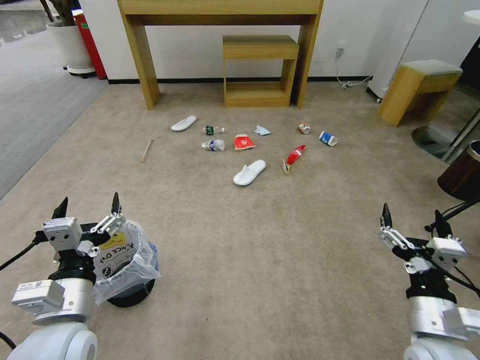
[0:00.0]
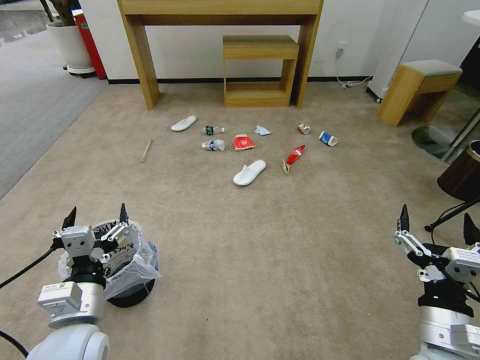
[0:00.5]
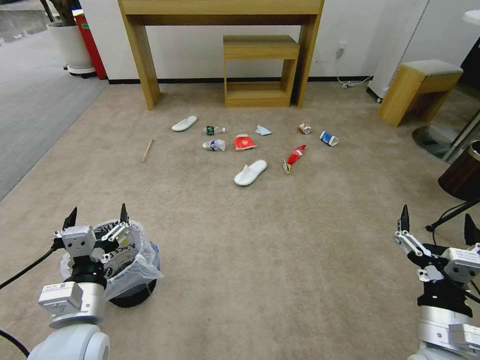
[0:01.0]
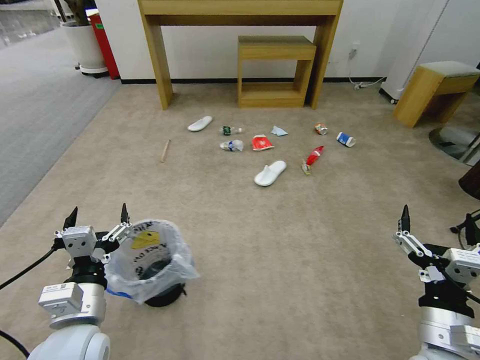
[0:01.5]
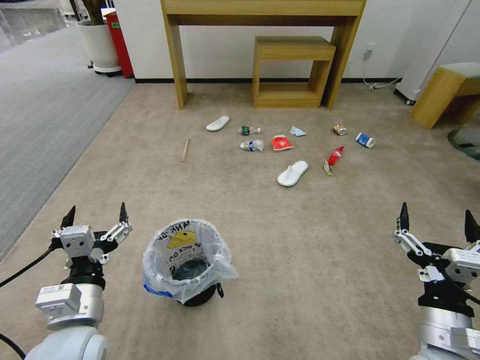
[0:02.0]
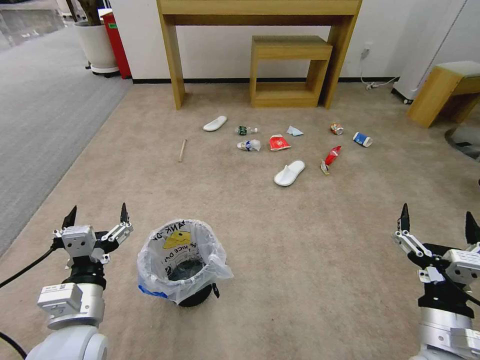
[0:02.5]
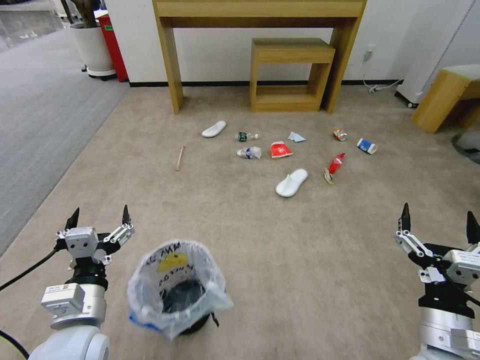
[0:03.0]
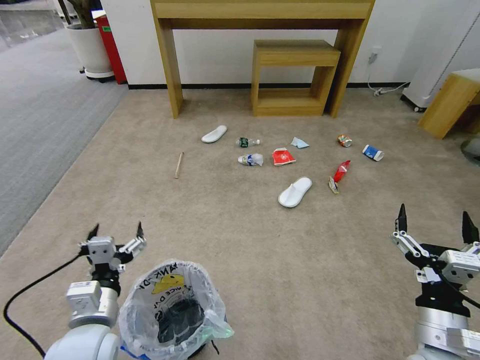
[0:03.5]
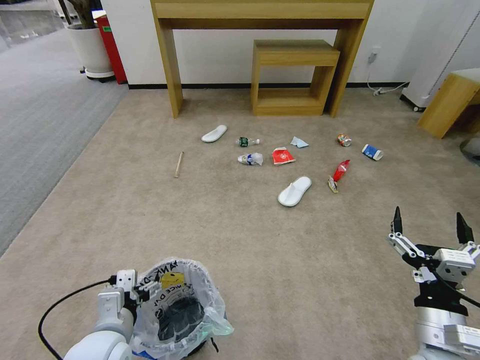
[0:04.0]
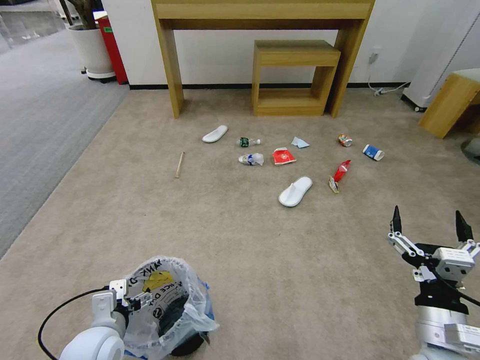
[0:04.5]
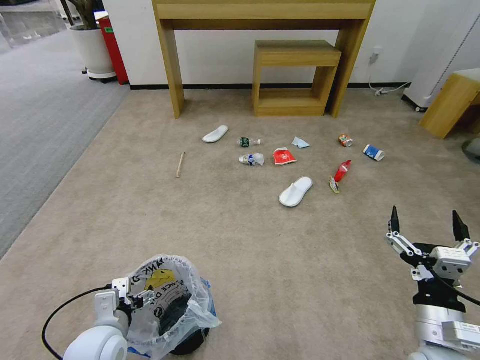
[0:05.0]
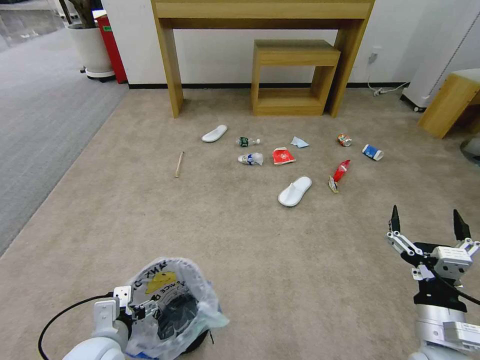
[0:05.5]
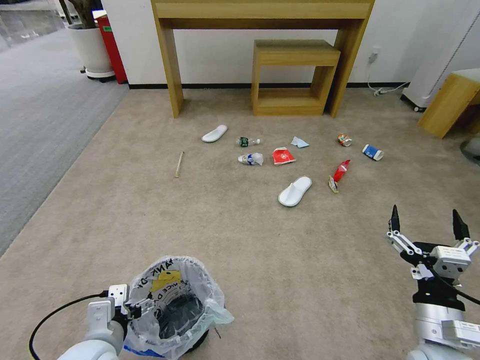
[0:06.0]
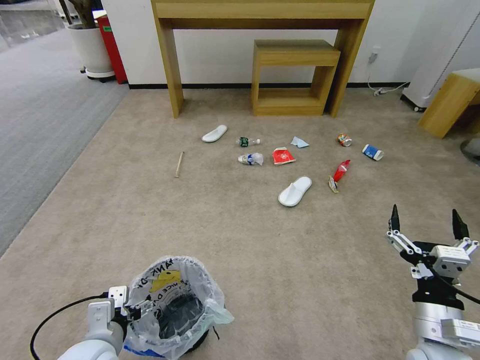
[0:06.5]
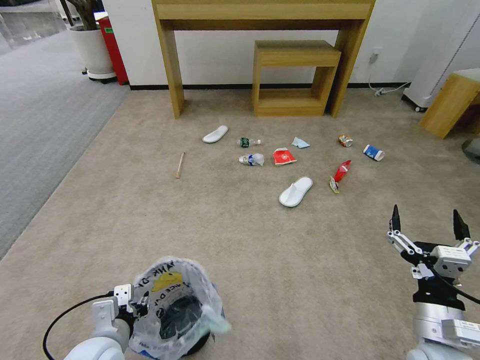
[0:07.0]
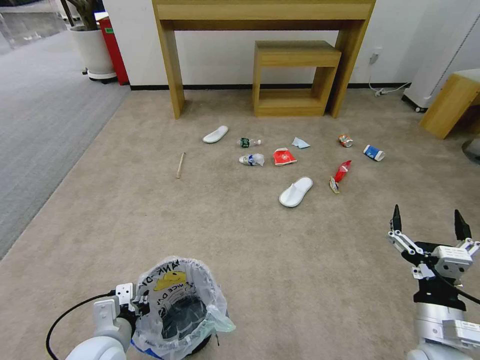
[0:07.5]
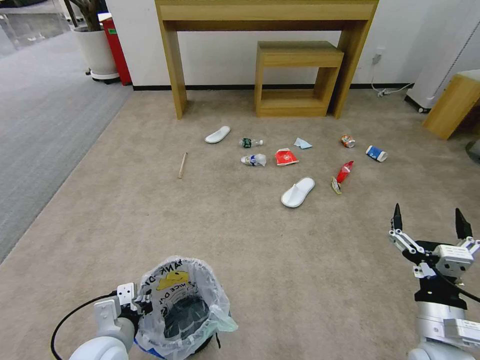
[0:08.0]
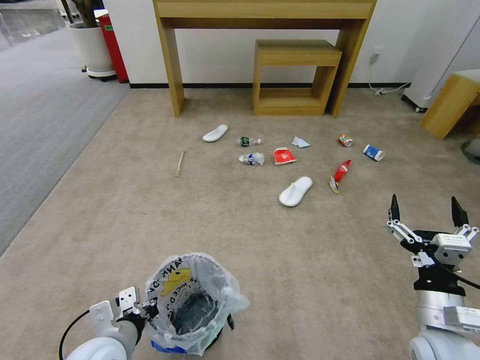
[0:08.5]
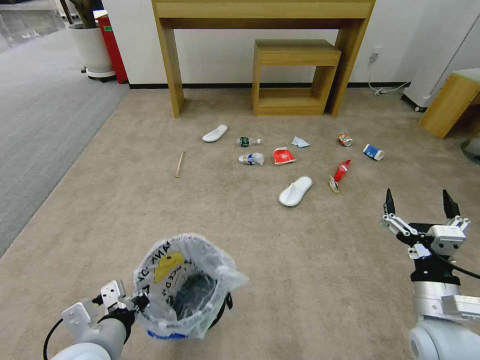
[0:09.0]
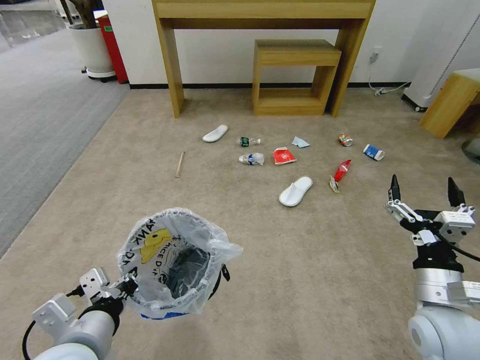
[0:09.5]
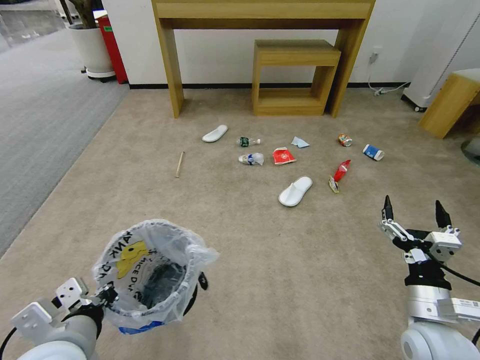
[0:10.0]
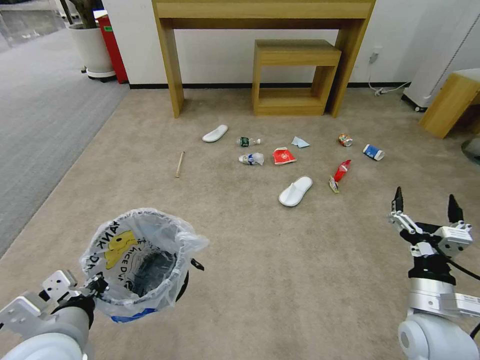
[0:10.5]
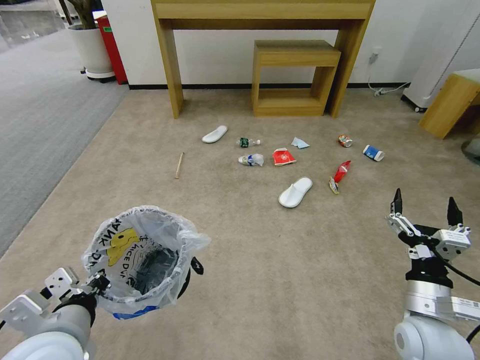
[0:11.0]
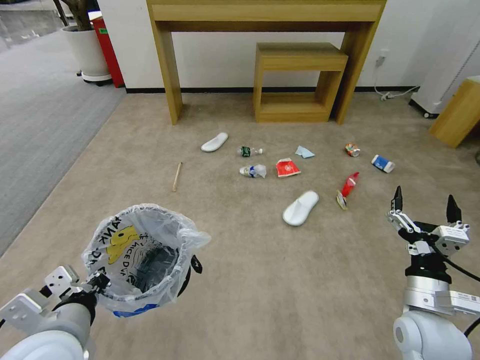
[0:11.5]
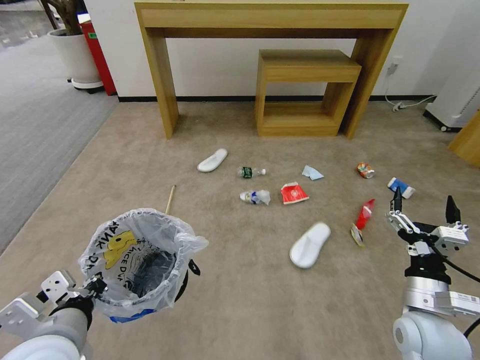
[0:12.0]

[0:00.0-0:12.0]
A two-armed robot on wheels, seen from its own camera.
Task of the whole recording: Pick up the trash bin and place the garbage on the floor into it.
0:02.0 to 0:04.0: The left gripper moves downward, approximately 5 cm.
0:04.0 to 0:06.0: The grippers make only small movements.
0:06.0 to 0:08.0: The left gripper closes up.
0:08.0 to 0:10.0: The left gripper is displaced upward by roughly 15 cm.

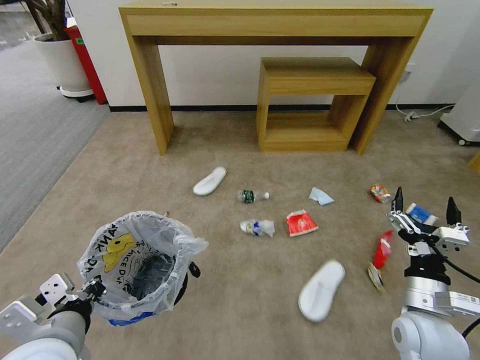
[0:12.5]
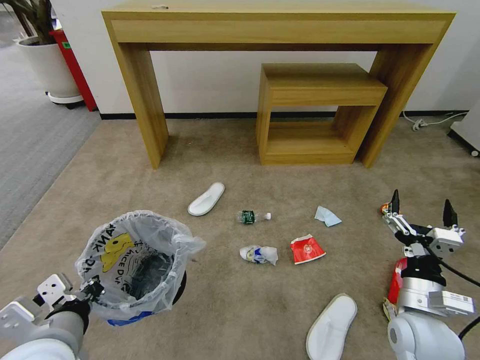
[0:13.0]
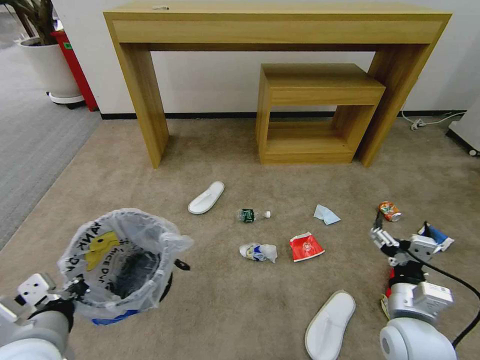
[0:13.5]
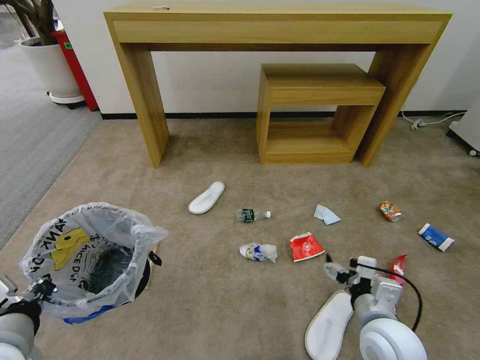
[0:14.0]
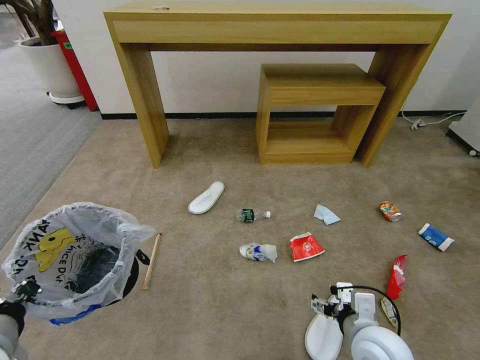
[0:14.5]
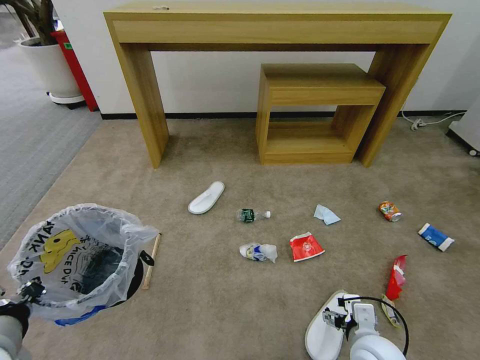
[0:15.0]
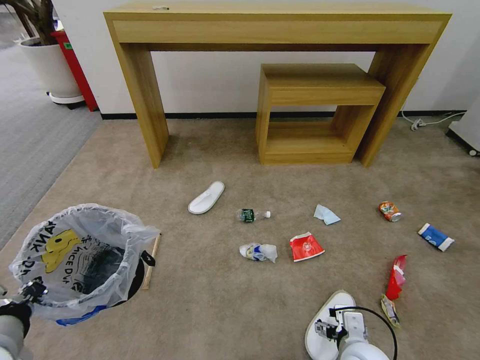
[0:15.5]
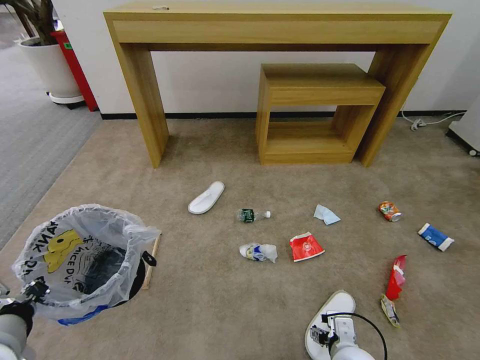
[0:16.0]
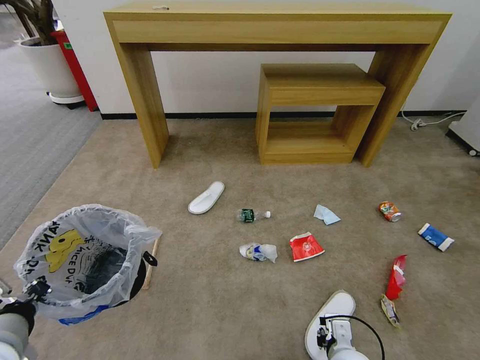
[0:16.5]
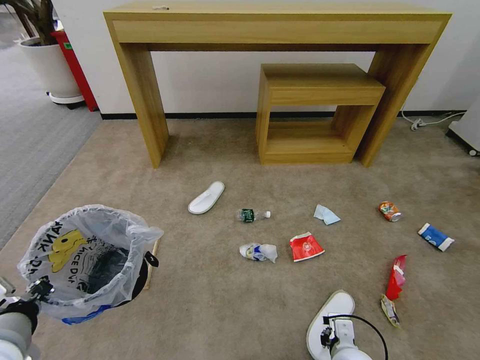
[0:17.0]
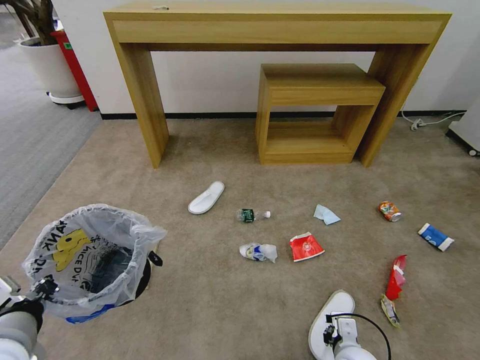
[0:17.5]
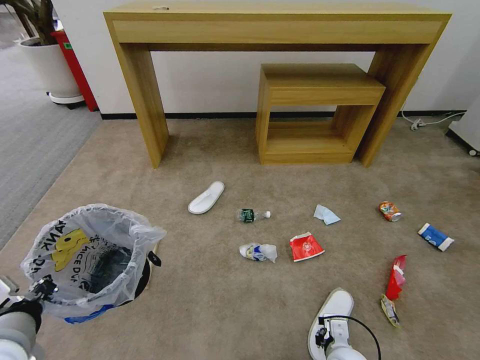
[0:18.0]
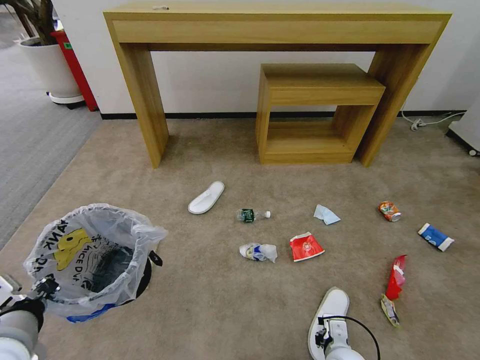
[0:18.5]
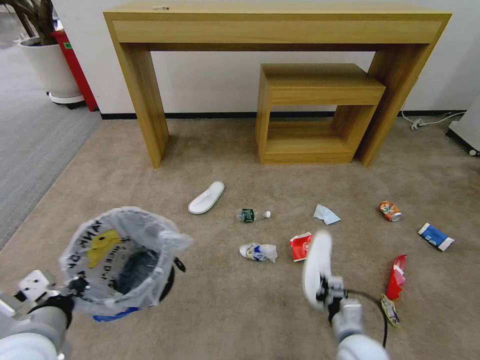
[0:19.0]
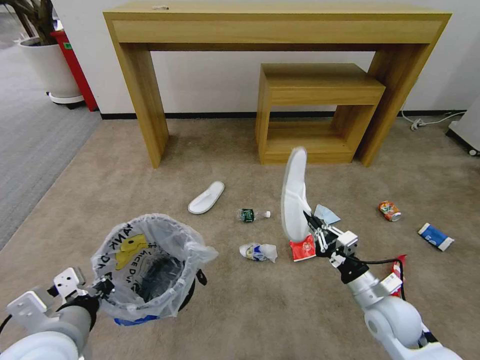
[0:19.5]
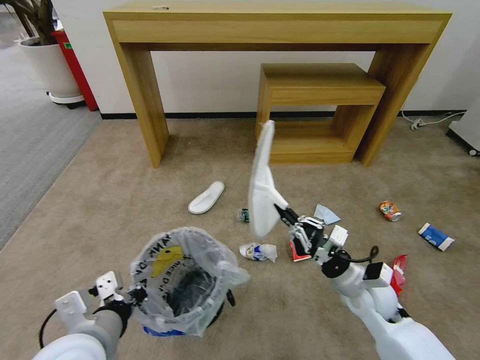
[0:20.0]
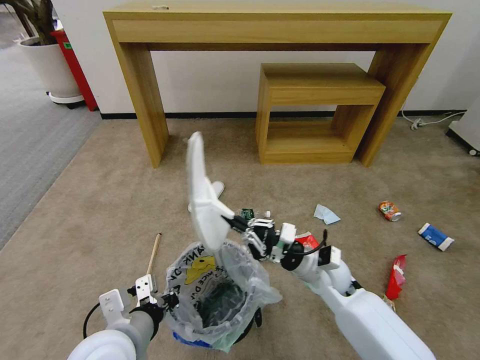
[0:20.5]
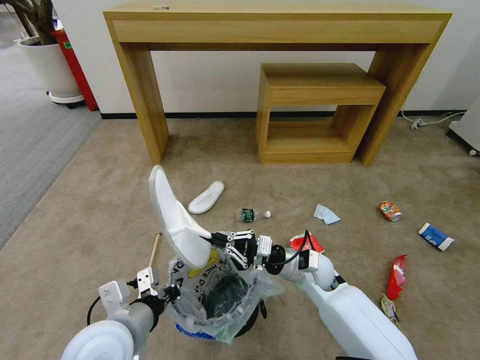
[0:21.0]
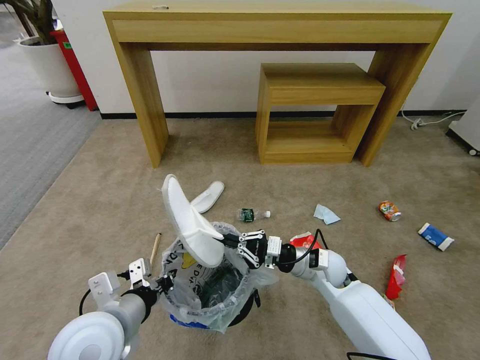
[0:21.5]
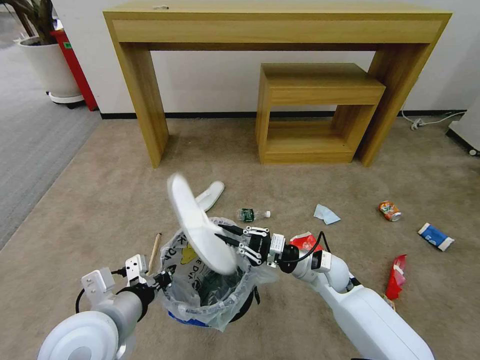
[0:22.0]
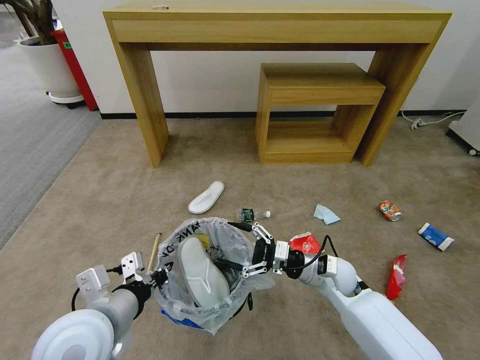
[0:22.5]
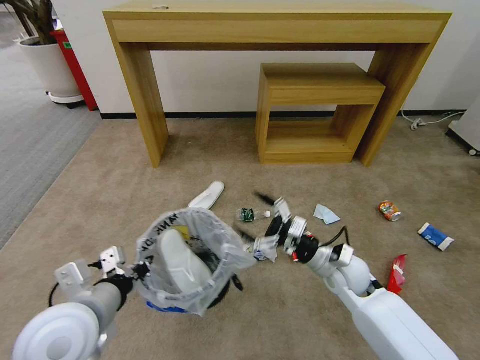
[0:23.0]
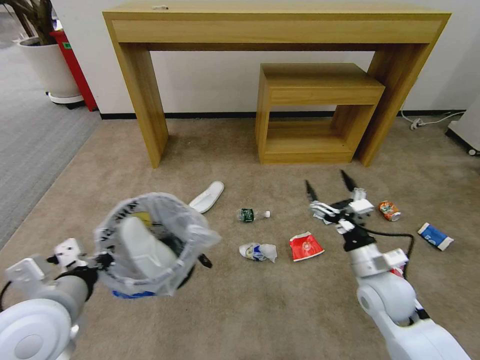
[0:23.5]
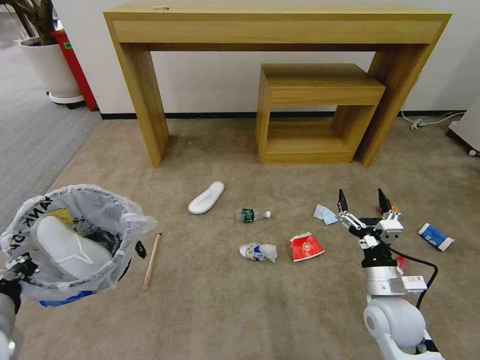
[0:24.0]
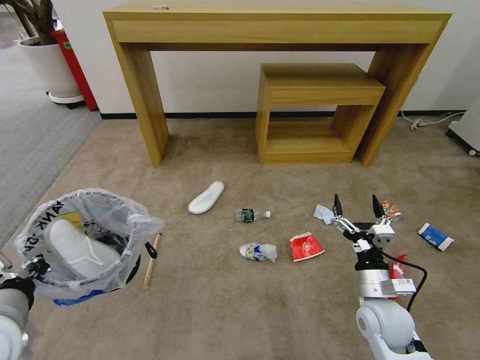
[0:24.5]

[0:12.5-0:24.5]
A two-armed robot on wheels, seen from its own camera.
Task of the whole recording: Pick up the trash bin and place the garbage on the floor into it.
0:12.5 to 0:14.5: The two grippers go approximately 5 cm to the left.
0:14.5 to 0:16.5: The right gripper travels downward by some 10 cm, and closes its fingers.
0:16.5 to 0:18.5: The grippers move only a little.
0:18.5 to 0:20.5: The left gripper travels to the right and downward by approximately 15 cm, while the right gripper heads forward and upward, covering roughly 20 cm.
0:20.5 to 0:22.5: The left gripper shifts by some 5 cm. Meanwhile the right gripper opens up.
0:22.5 to 0:24.5: The right gripper heads backward and to the right, covering approximately 10 cm. The left gripper is displaced to the left by roughly 10 cm.

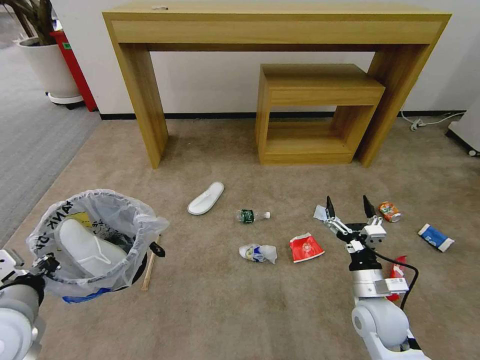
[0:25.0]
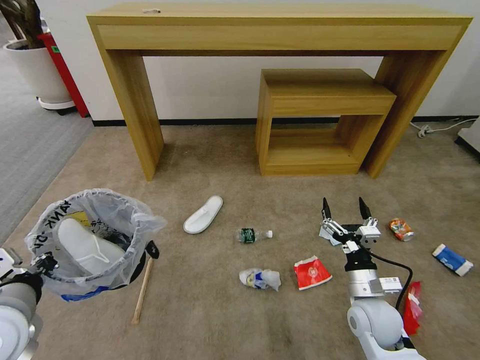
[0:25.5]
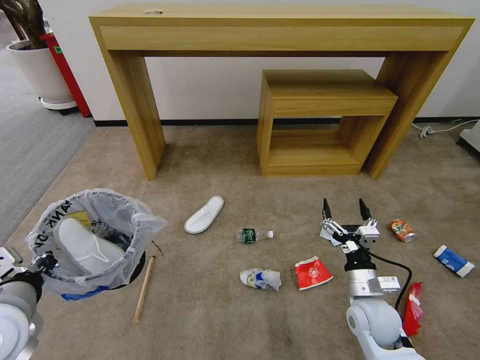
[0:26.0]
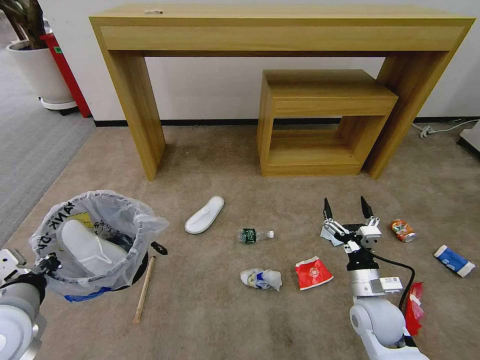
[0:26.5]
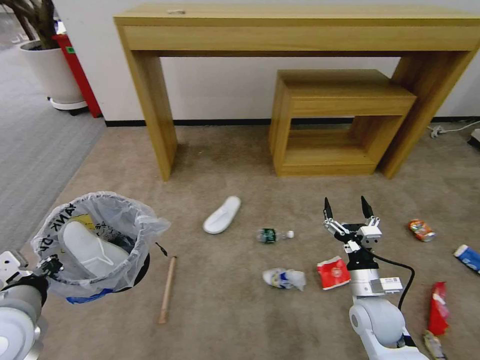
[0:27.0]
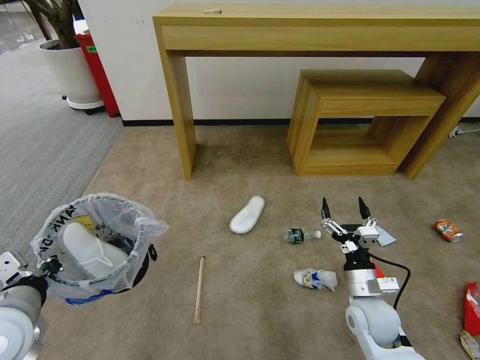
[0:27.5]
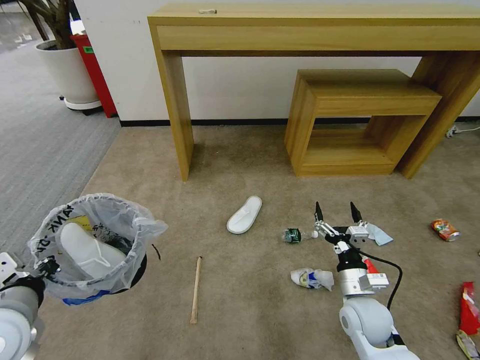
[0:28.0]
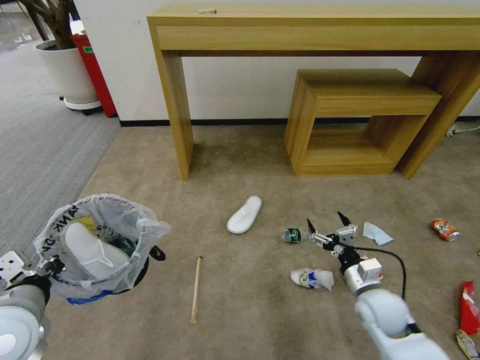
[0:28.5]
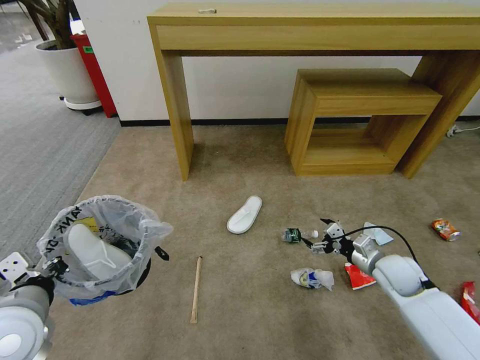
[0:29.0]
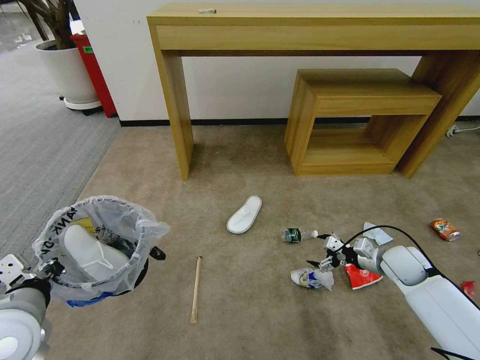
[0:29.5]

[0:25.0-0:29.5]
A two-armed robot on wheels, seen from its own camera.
Task of the whole recording: Pick up the trash bin and place the garbage on the floor into it.
0:27.0 to 0:29.5: The right gripper travels to the right and forward by approximately 15 cm.
